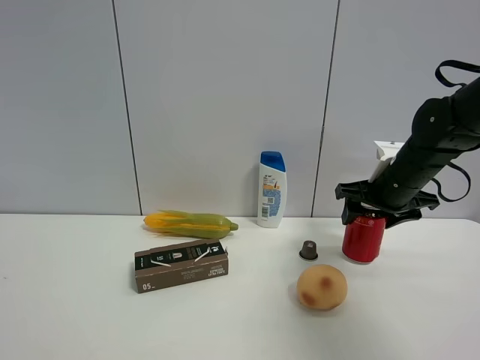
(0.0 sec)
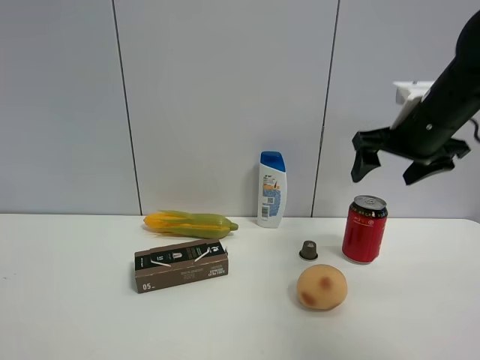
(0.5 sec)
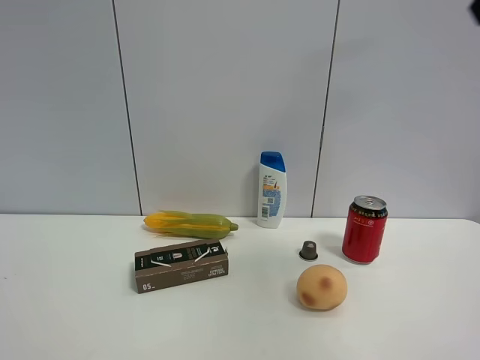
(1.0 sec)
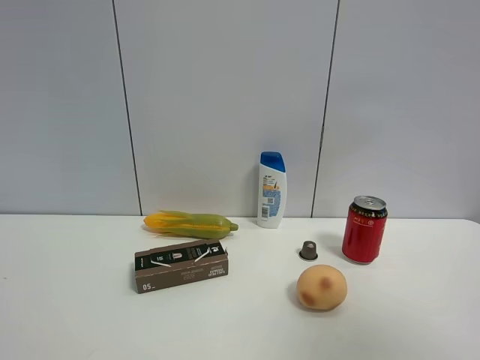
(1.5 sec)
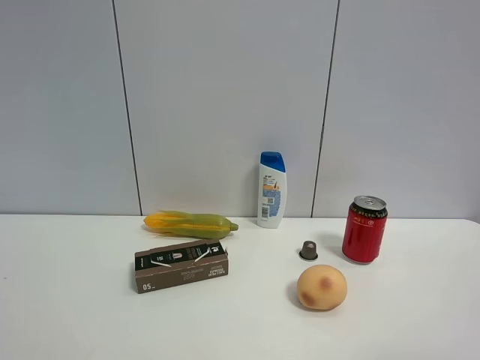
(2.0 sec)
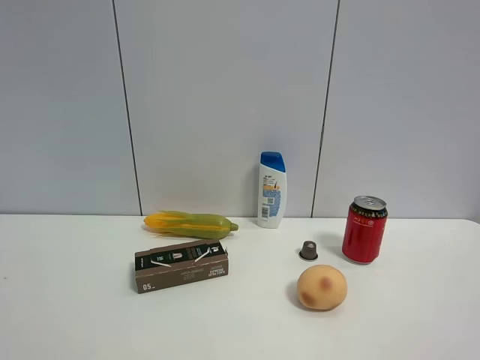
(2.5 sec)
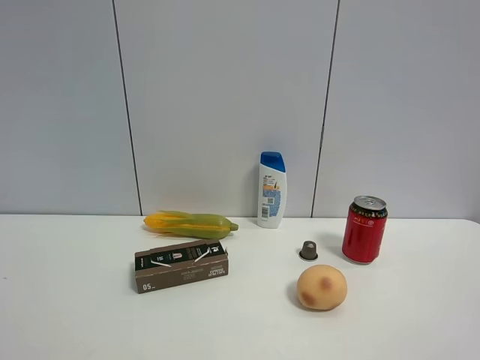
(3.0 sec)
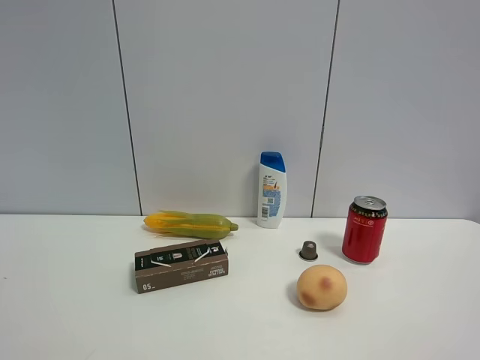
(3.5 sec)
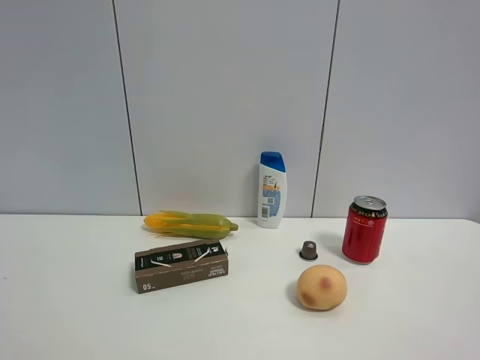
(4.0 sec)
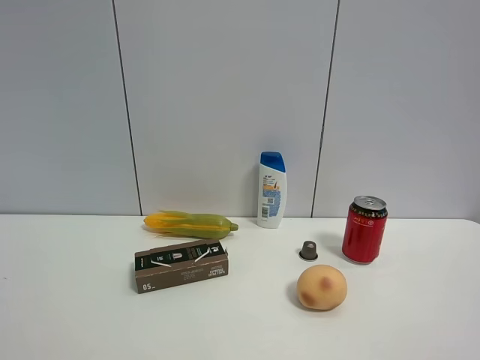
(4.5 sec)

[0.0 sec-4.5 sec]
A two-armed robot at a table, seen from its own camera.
Task of the whole recording: the gripper move the object.
0.0 sec to 2.0 sec: The right gripper shifts about 40 cm backward, and opens.

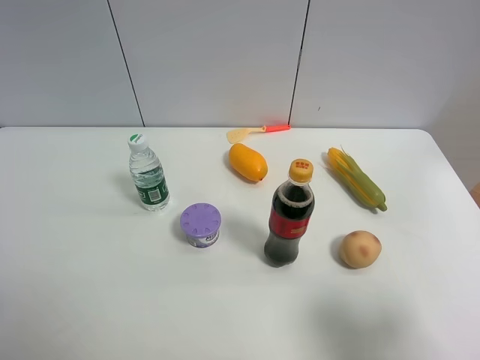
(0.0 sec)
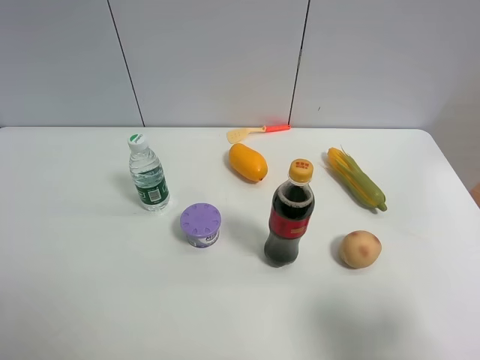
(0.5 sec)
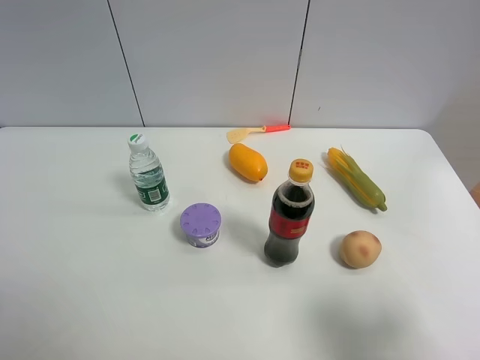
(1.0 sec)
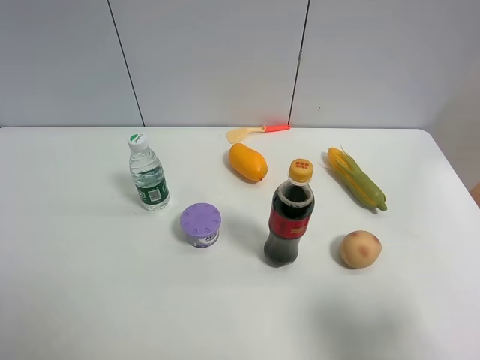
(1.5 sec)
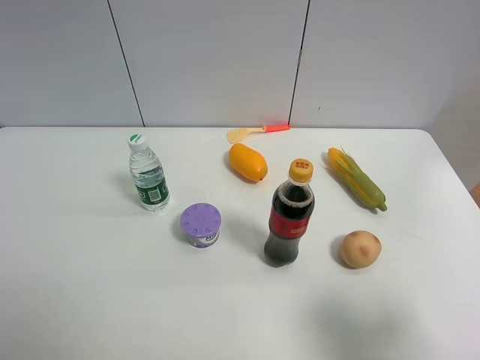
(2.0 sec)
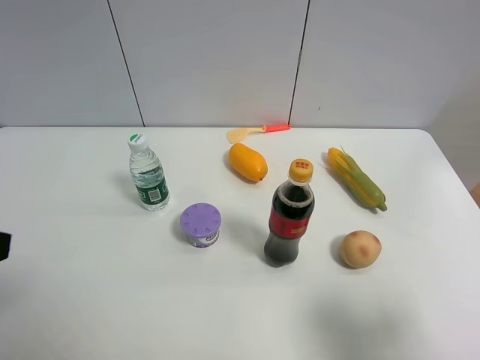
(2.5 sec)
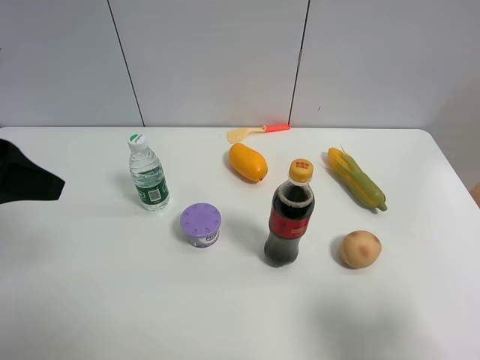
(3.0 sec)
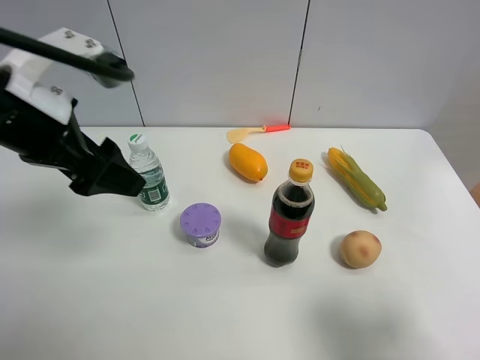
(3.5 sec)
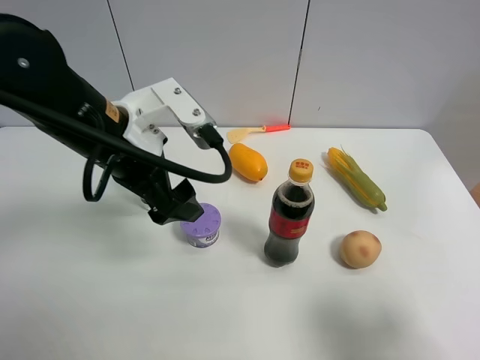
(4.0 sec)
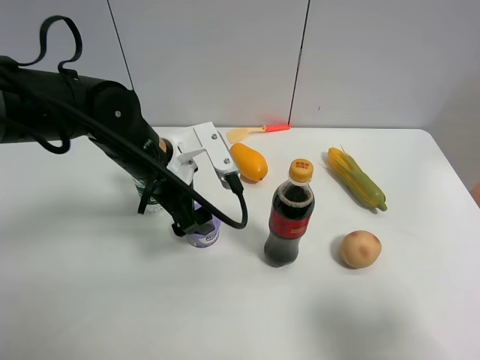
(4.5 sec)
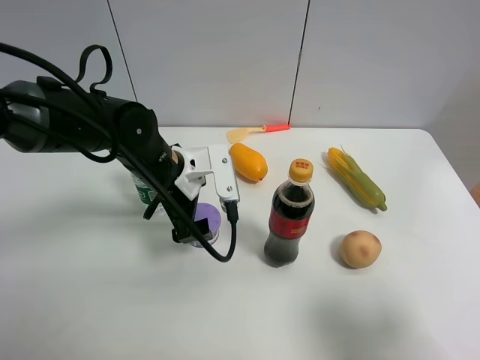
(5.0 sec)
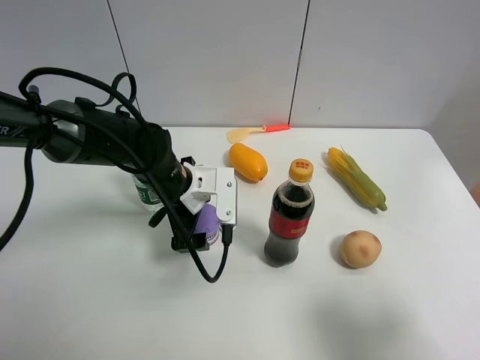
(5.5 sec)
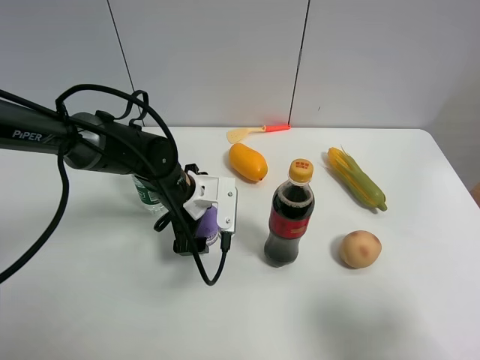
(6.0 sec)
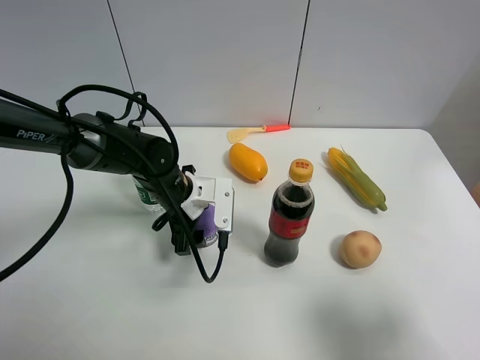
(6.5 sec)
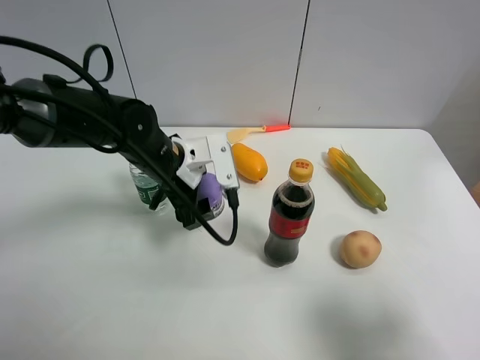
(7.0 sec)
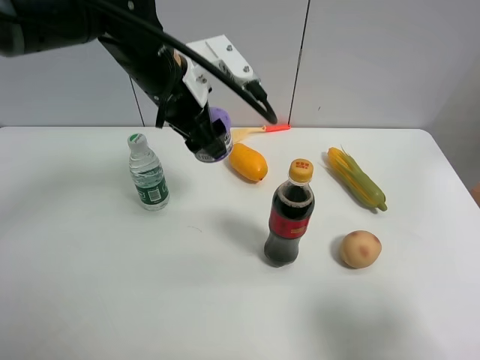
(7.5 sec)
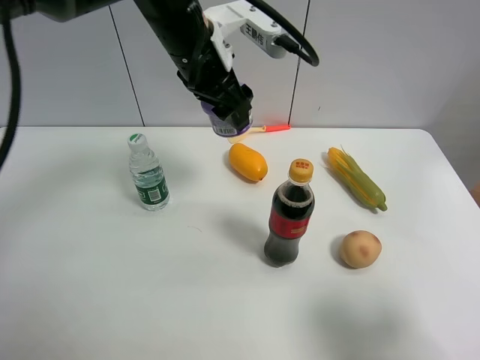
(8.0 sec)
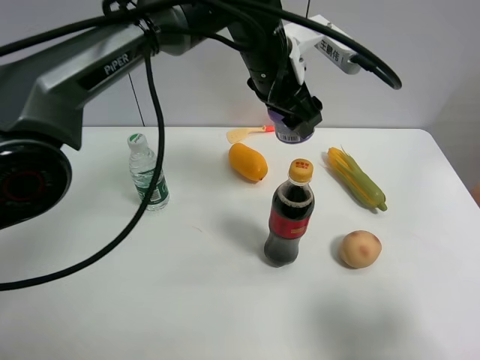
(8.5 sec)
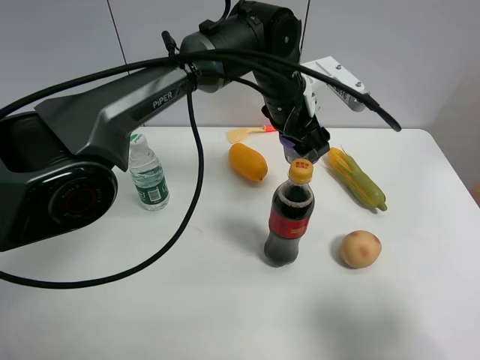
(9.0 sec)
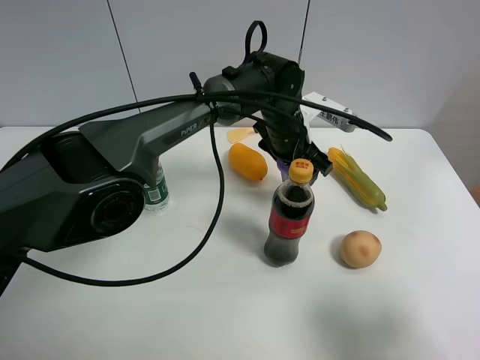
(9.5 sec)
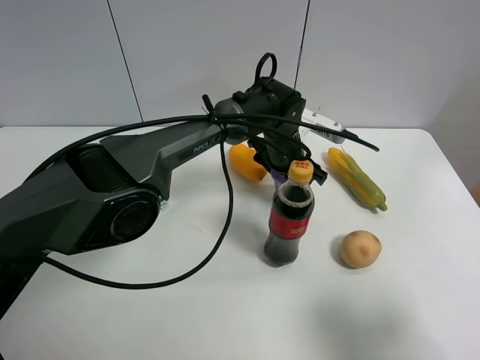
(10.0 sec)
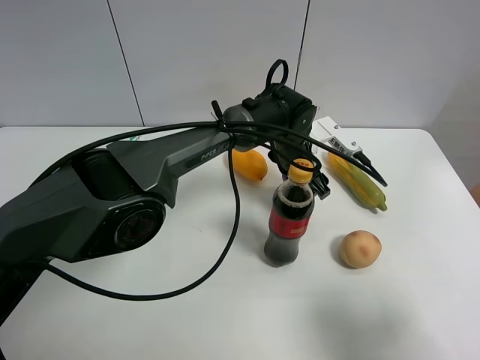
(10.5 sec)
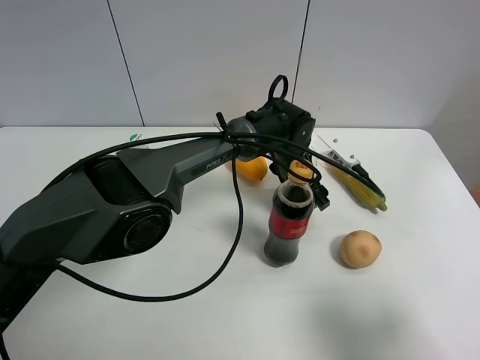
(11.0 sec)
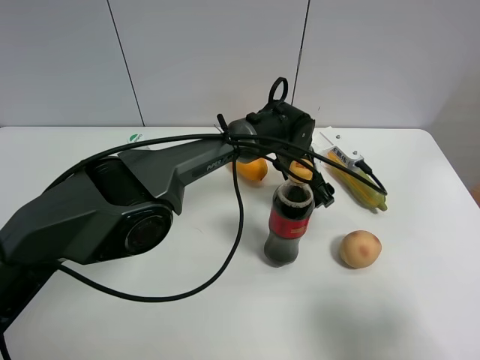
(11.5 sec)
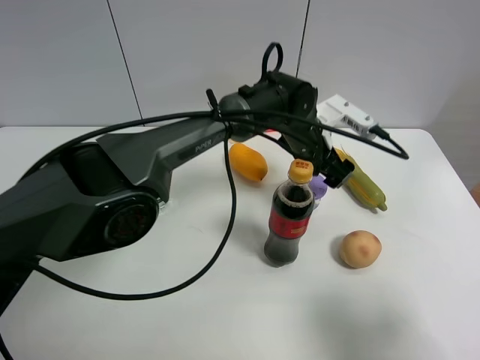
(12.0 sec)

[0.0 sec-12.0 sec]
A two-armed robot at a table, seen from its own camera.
Task of the whole recording: the gripper move the object.
Step, 0.0 sec to 6.0 sec: Grasp the Incense box with the left gripper.
Step, 6.5 sec to 11.5 sec: Place the Incense box on the table with the left gripper.
2.0 sec to 4.0 sec: The left gripper goes about 30 cm forward and to the right.
4.0 sec to 6.0 sec: The left gripper is displaced downward by approximately 15 cm.
6.0 sec to 8.0 sec: The left gripper travels upward by approximately 20 cm, and closes up.
8.0 sec to 10.0 sec: The left gripper moves downward and to the right, some 20 cm.
10.0 sec to 12.0 sec: The left gripper changes place by approximately 5 cm, and opens.

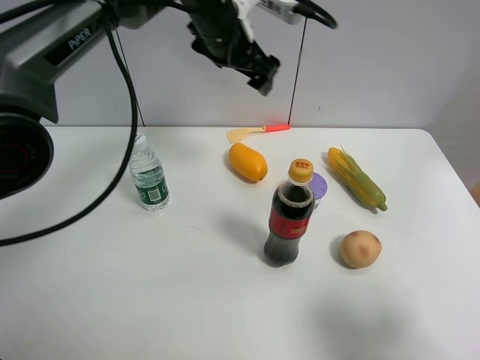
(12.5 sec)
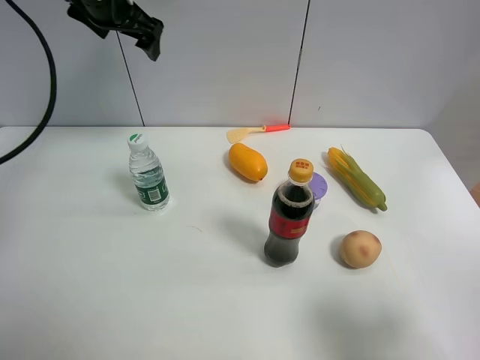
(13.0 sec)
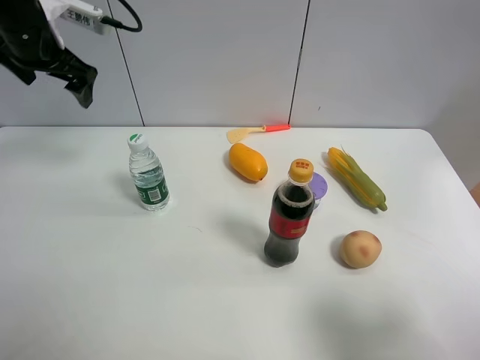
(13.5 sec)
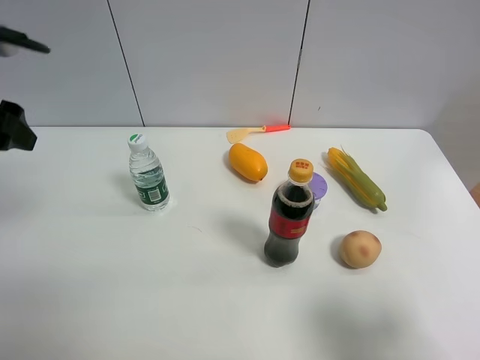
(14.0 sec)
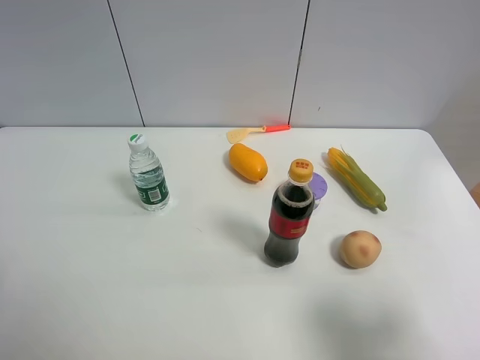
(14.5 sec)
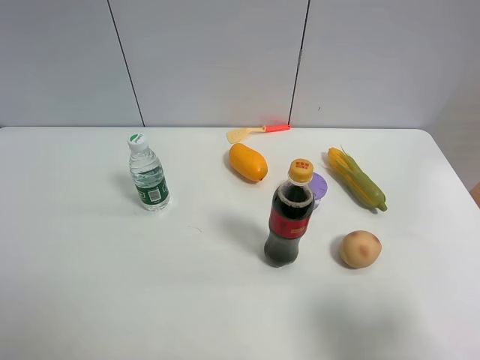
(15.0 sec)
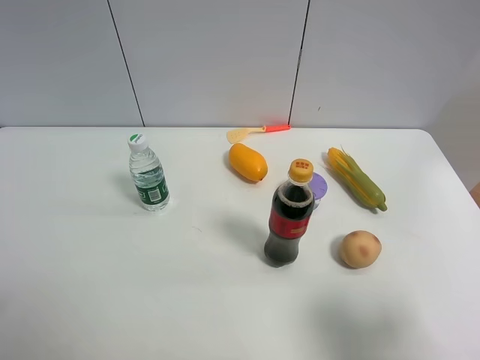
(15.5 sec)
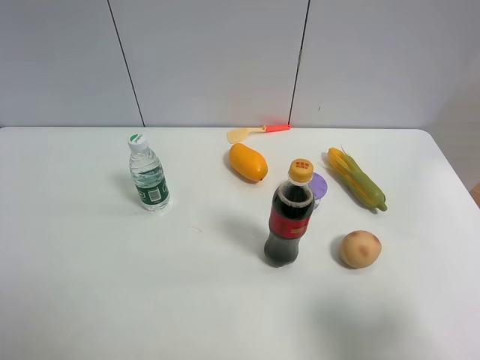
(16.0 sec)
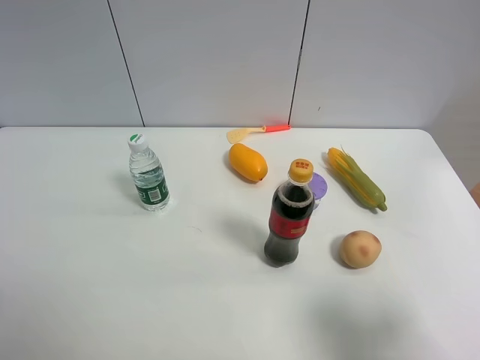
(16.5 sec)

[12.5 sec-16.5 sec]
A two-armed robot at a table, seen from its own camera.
Task of the whole recording: the gripper move the object.
12.5 sec to 14.5 sec: The left gripper heads backward and to the left, covering roughly 50 cm.

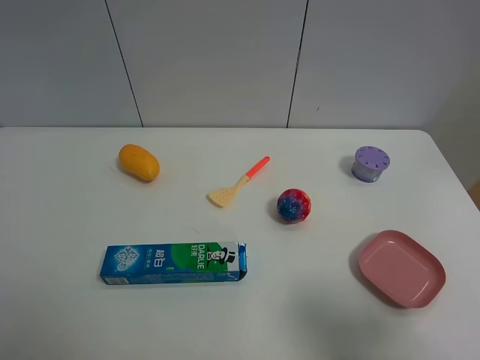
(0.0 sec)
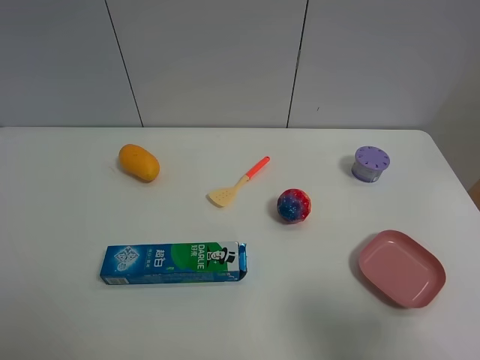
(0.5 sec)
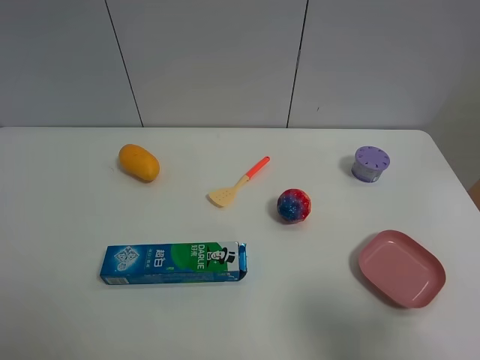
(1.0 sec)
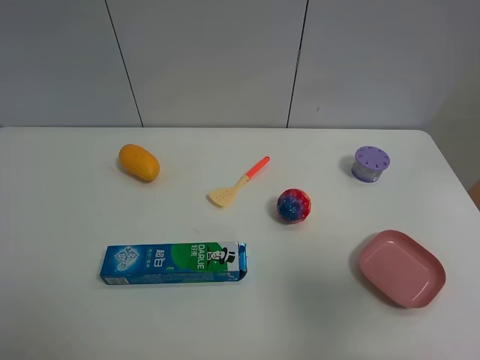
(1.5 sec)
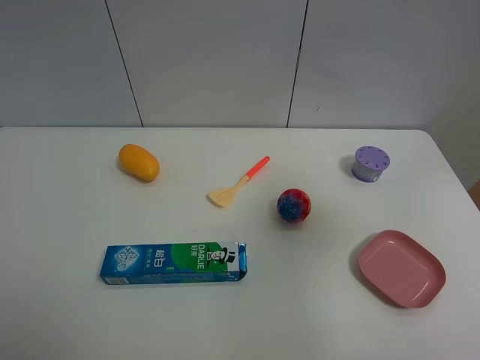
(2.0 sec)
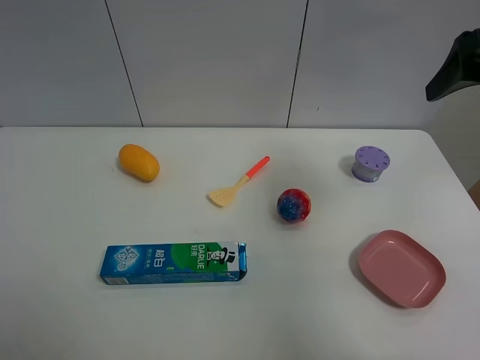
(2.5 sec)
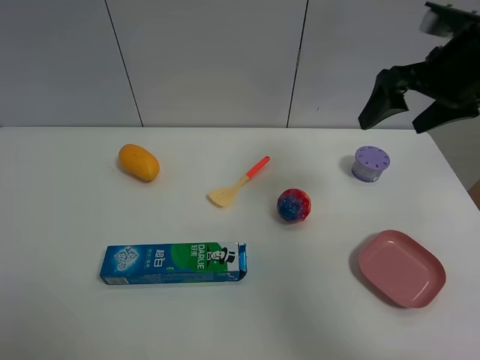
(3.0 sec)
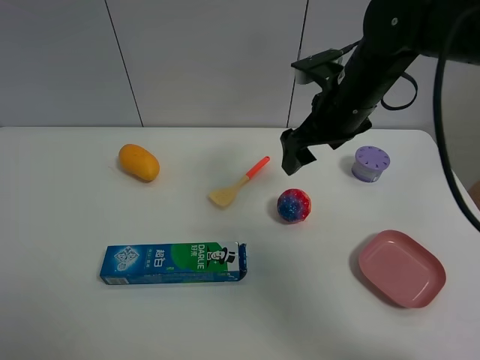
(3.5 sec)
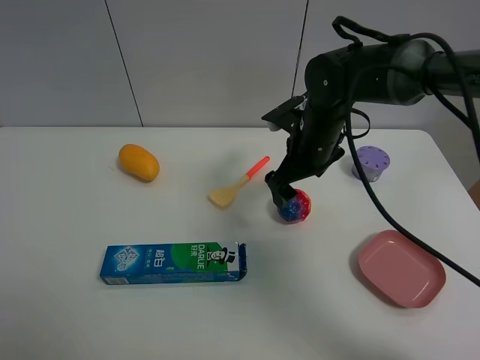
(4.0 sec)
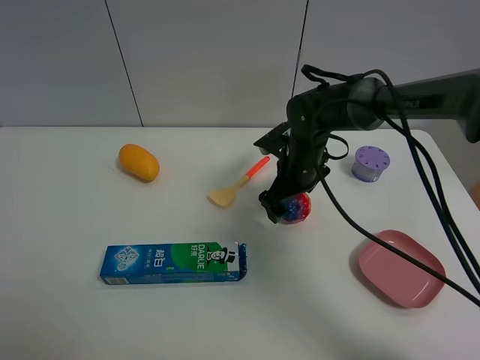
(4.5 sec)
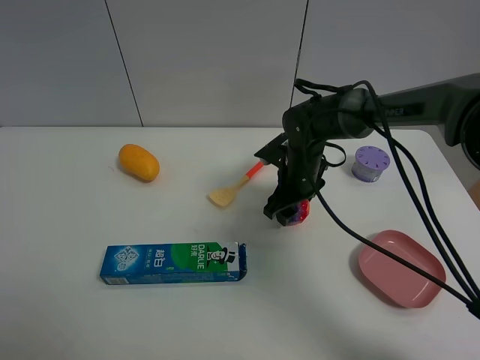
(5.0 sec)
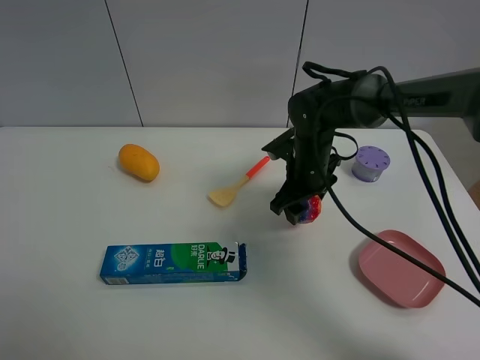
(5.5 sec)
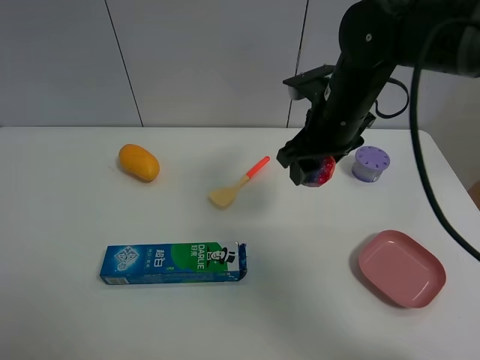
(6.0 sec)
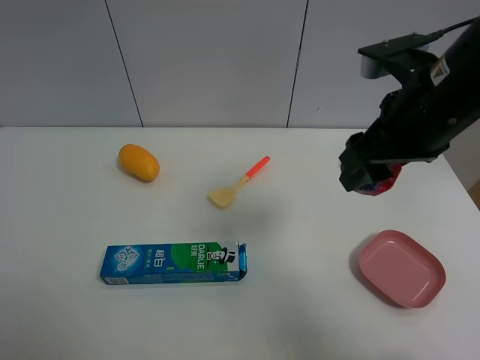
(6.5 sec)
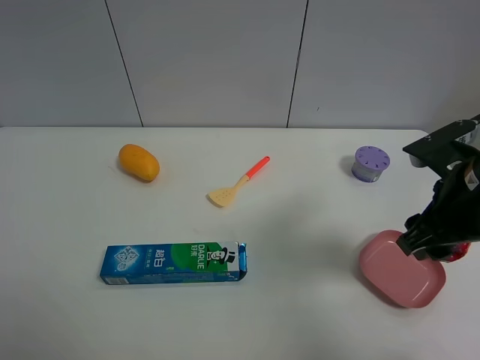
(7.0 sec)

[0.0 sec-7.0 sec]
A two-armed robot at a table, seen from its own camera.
Task of the whole recording: the gripper move the object.
Step, 0.0 sec to 5.0 sec: Grasp the colorful ball with the right gripper.
0.0 sec to 2.0 sec: The right gripper heads forward and upward, covering about 20 cm.
2.0 sec to 3.5 sec: The right gripper shifts approximately 25 cm to the left, forward and downward.
3.5 sec to 5.0 sec: The right gripper is displaced downward by approximately 15 cm, and closes its fingers.
5.0 sec to 7.0 sec: The right gripper moves backward, upward and to the right, roughly 25 cm.
